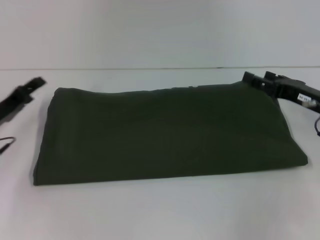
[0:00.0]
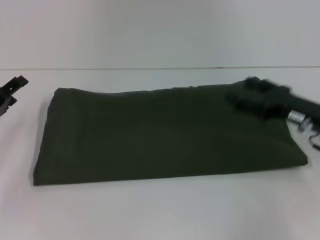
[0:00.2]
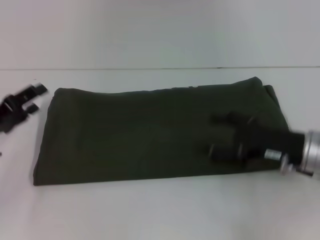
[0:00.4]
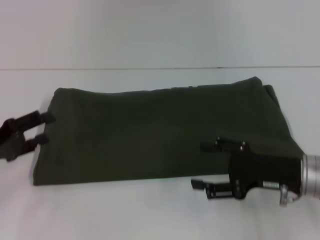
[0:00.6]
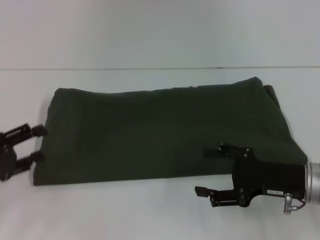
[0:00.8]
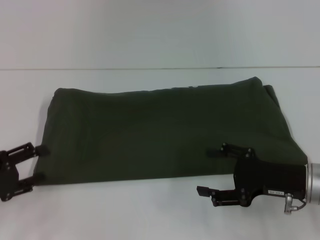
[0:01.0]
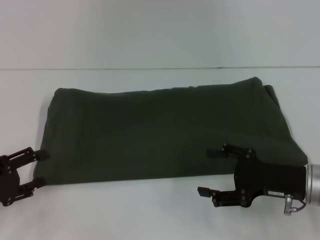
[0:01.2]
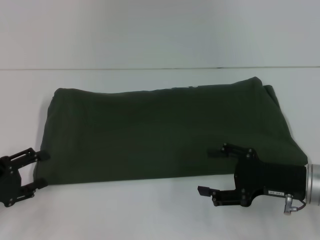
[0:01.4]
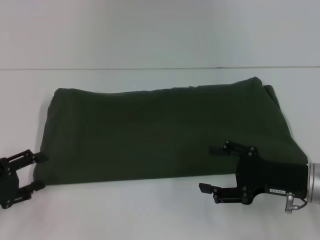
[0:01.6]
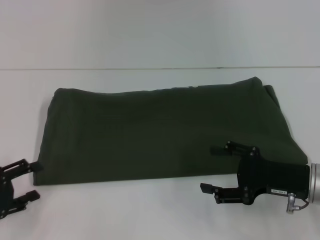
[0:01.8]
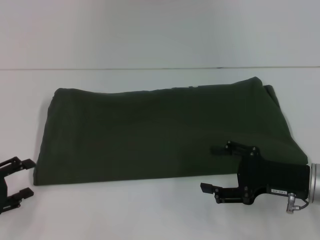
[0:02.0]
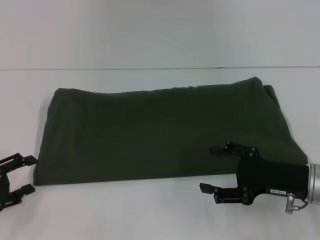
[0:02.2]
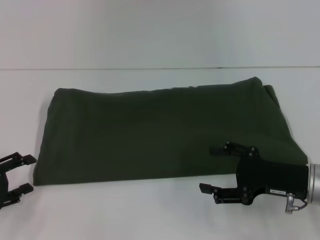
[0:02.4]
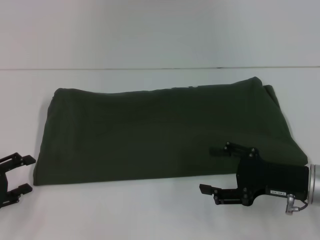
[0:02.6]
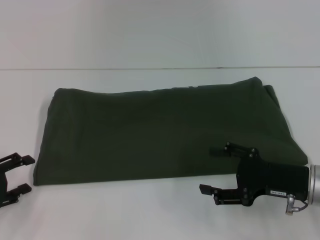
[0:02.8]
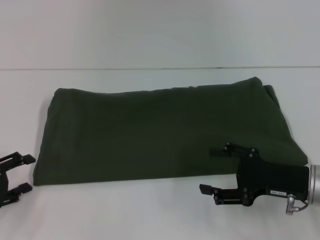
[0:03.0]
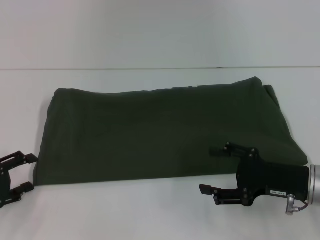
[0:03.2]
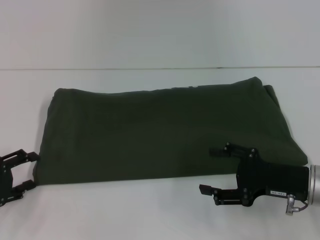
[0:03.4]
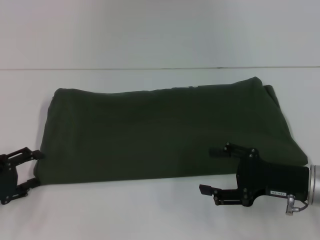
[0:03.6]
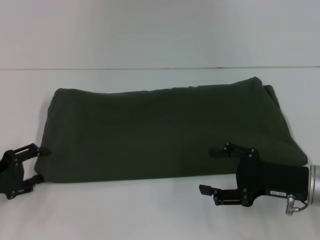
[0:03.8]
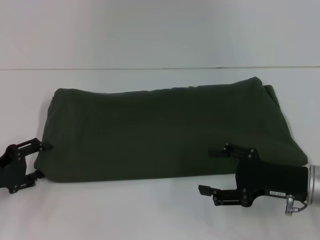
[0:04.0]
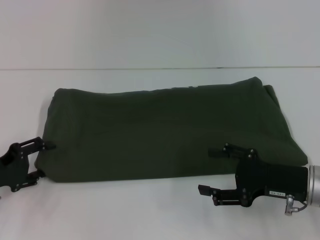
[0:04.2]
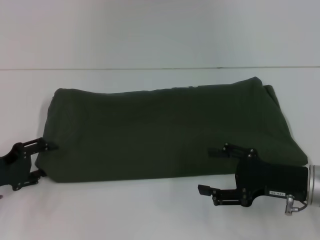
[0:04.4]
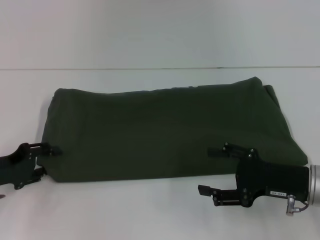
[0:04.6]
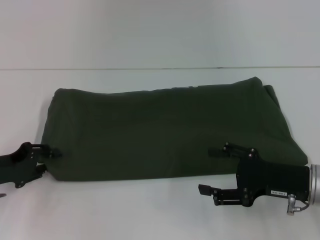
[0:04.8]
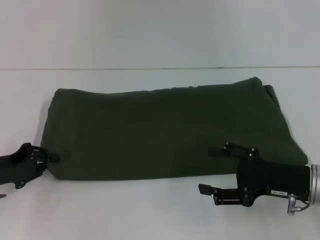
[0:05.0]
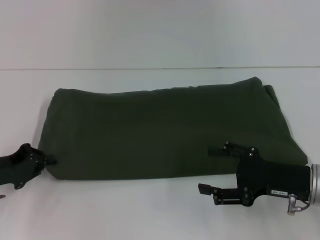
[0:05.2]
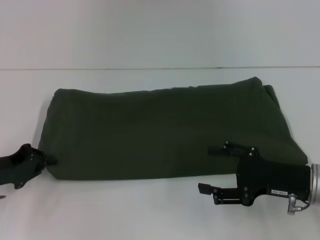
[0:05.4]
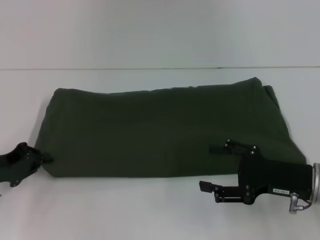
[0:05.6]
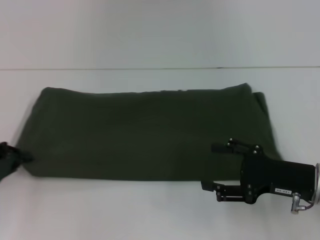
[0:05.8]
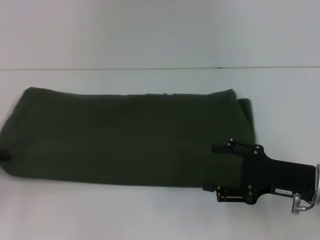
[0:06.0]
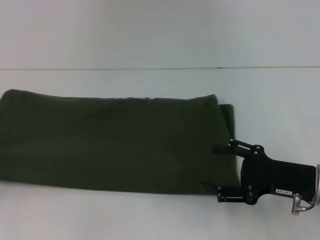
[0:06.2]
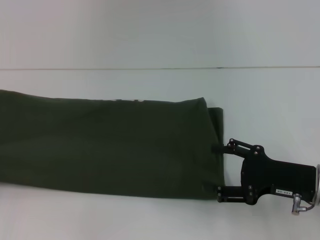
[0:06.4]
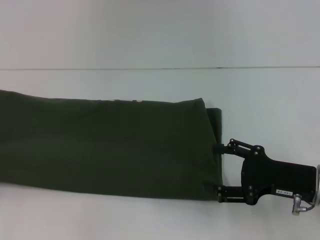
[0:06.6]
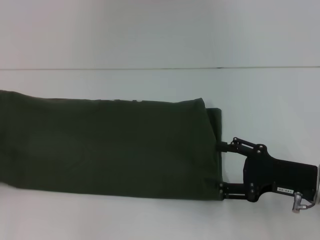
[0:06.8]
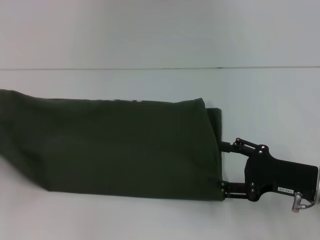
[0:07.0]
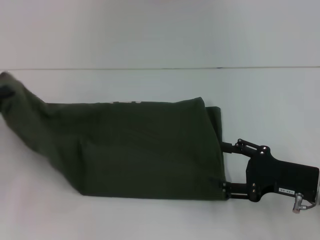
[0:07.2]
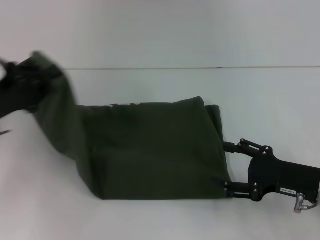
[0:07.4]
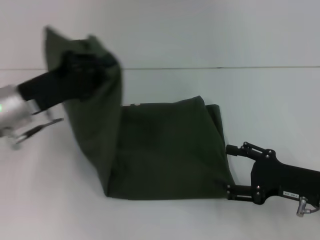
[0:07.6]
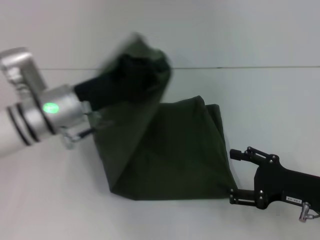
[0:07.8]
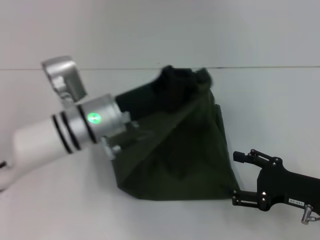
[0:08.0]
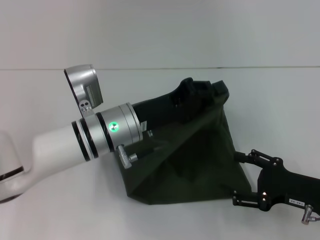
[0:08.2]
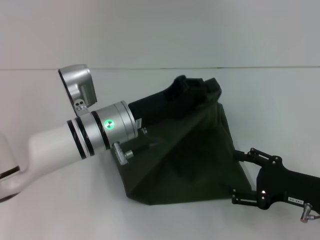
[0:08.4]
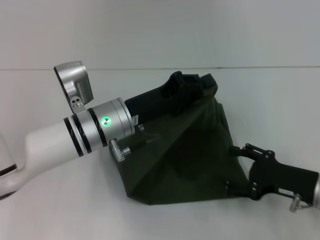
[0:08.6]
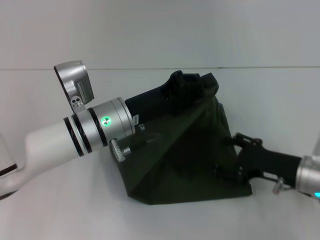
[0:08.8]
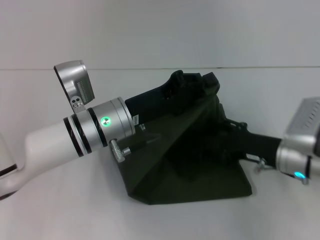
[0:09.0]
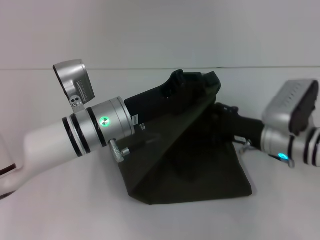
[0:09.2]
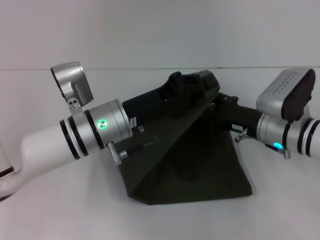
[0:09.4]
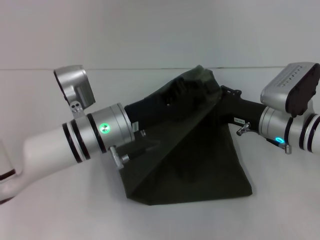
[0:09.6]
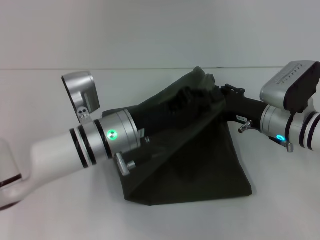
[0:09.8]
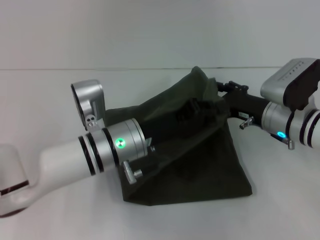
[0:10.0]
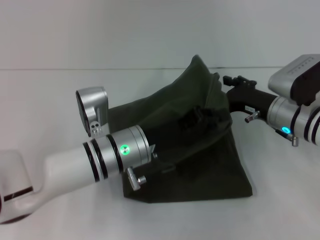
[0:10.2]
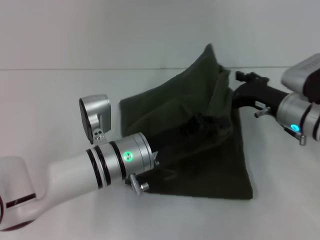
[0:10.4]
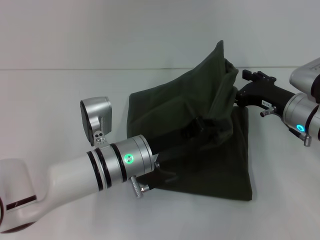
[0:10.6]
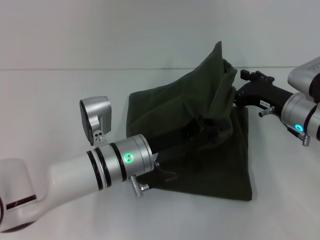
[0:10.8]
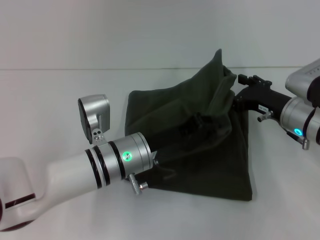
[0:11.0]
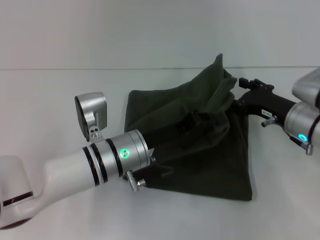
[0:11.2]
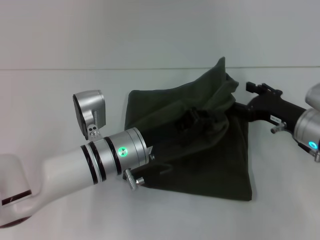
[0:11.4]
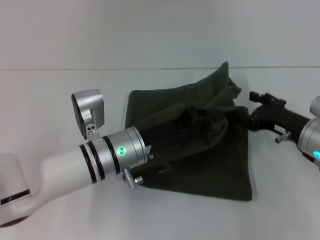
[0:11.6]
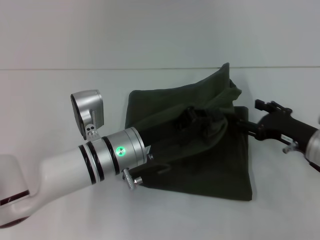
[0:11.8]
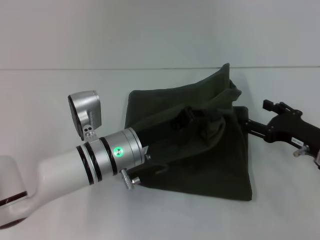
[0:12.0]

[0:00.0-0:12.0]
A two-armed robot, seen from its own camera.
0:00.0 to 0:01.6: Both grippers travel together backward, approximately 10 cm.
0:01.6 to 0:04.4: The grippers move only a little.
0:04.4 to 0:06.0: The left gripper heads to the left, covering some 5 cm, and closes up.
0:06.0 to 0:07.6: The left gripper heads to the right and forward, covering roughly 15 cm.
0:07.6 to 0:09.0: The right gripper shifts approximately 5 cm forward, while the left gripper shifts approximately 15 cm to the right.
0:09.0 to 0:10.4: The left gripper ends up roughly 5 cm from where it was. Meanwhile the right gripper is displaced forward by some 5 cm.
0:10.4 to 0:12.0: The right gripper travels backward and to the right by roughly 10 cm.

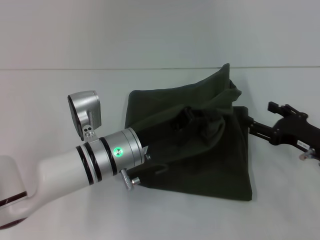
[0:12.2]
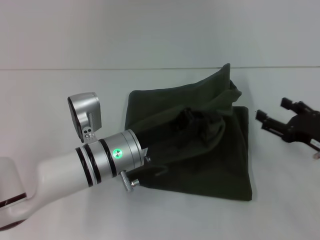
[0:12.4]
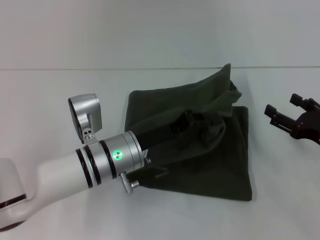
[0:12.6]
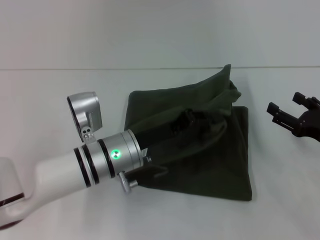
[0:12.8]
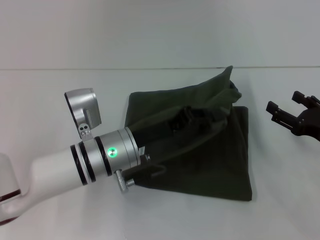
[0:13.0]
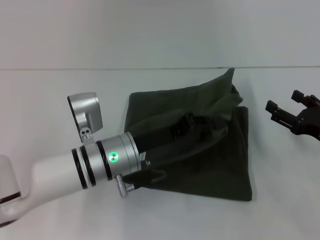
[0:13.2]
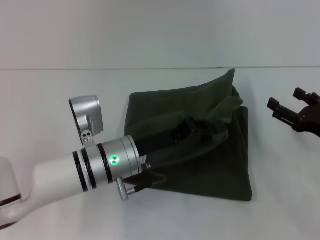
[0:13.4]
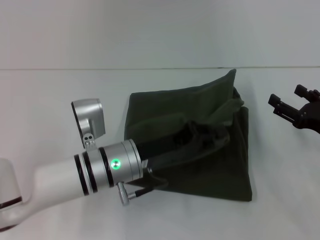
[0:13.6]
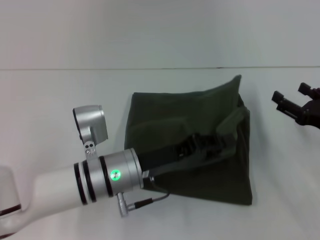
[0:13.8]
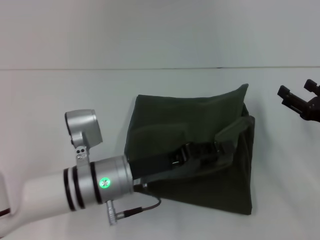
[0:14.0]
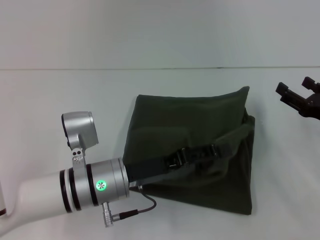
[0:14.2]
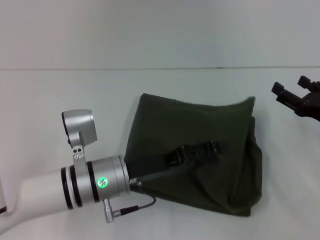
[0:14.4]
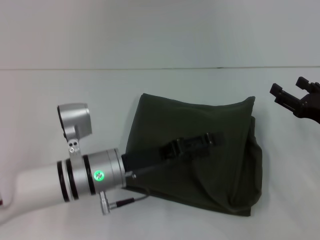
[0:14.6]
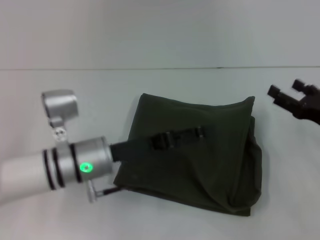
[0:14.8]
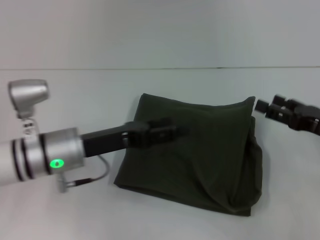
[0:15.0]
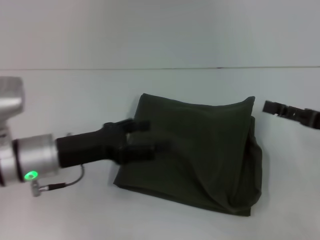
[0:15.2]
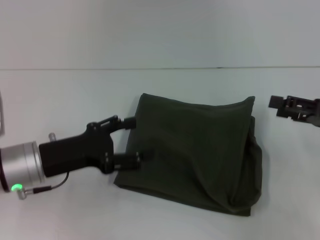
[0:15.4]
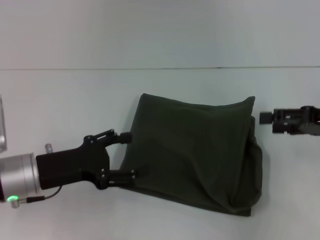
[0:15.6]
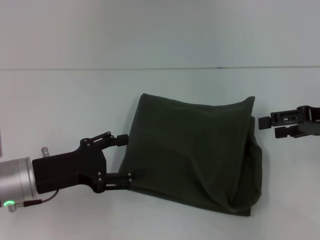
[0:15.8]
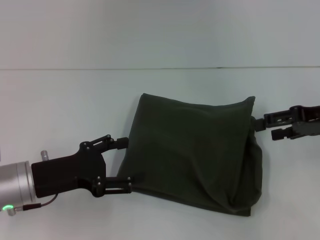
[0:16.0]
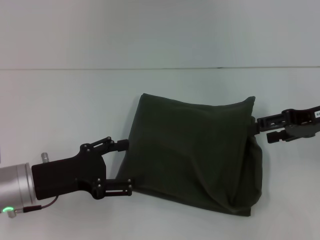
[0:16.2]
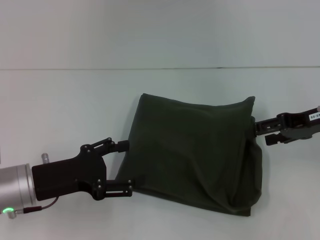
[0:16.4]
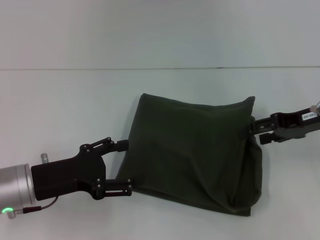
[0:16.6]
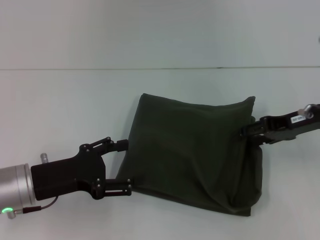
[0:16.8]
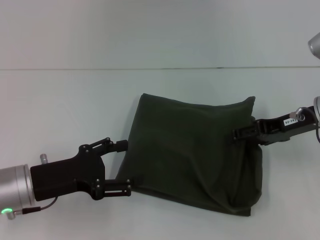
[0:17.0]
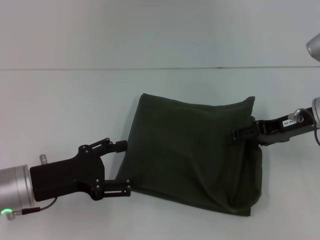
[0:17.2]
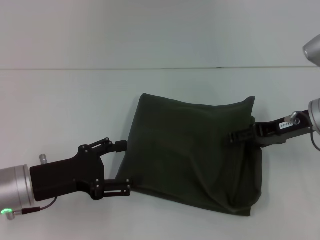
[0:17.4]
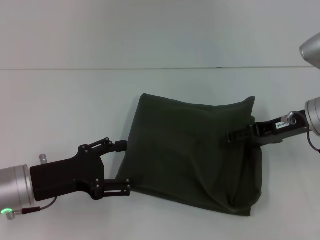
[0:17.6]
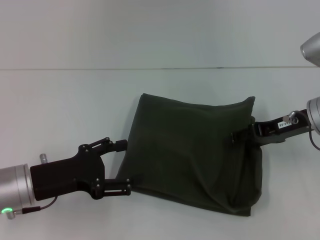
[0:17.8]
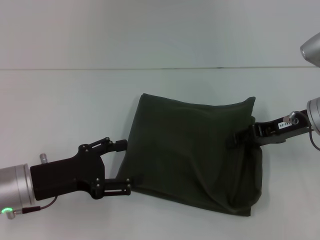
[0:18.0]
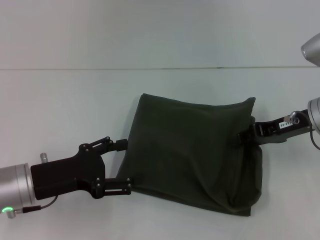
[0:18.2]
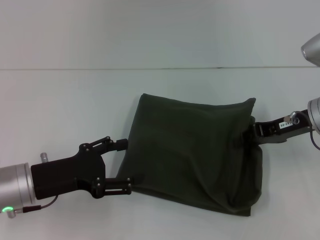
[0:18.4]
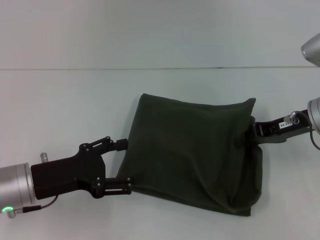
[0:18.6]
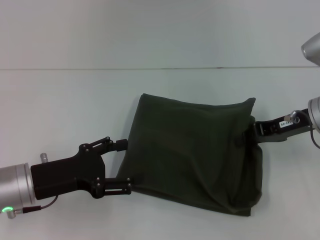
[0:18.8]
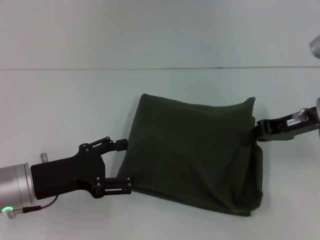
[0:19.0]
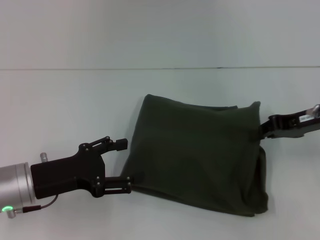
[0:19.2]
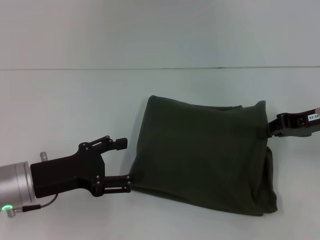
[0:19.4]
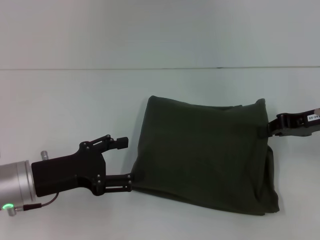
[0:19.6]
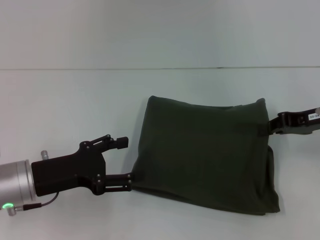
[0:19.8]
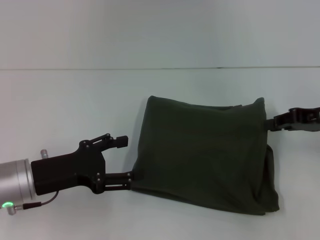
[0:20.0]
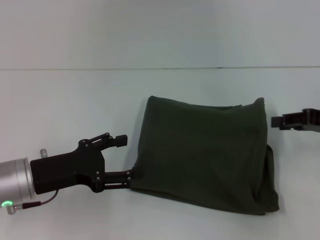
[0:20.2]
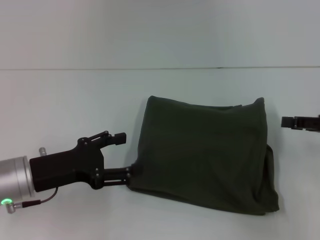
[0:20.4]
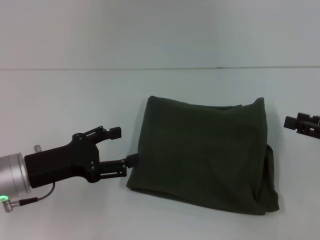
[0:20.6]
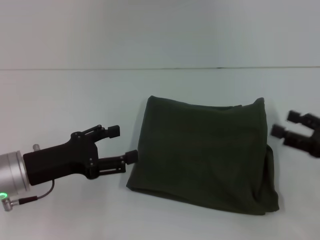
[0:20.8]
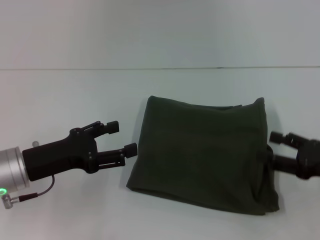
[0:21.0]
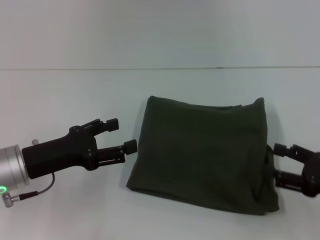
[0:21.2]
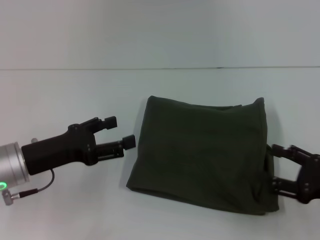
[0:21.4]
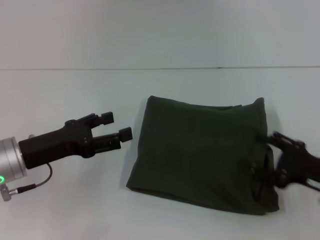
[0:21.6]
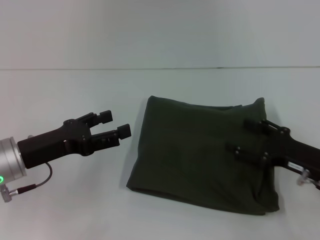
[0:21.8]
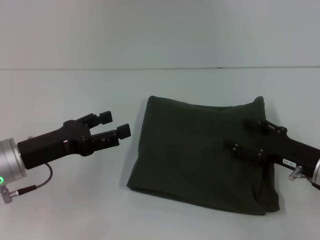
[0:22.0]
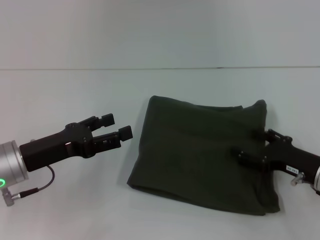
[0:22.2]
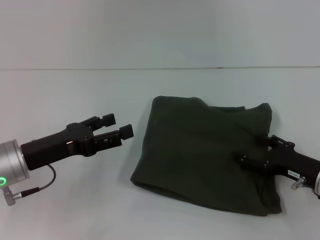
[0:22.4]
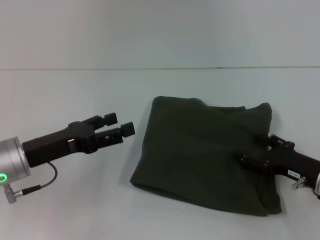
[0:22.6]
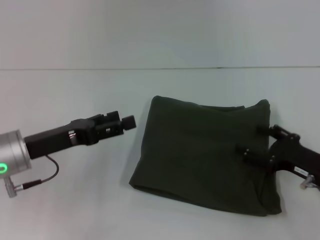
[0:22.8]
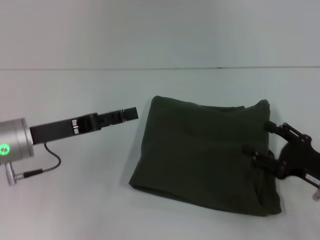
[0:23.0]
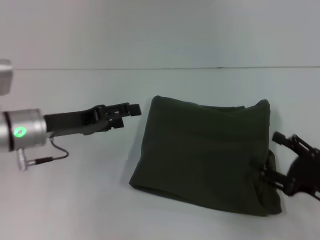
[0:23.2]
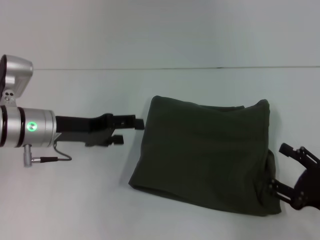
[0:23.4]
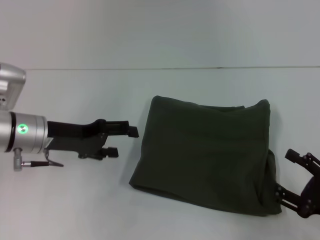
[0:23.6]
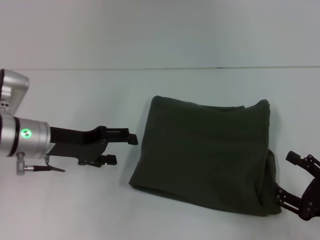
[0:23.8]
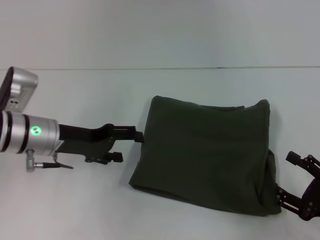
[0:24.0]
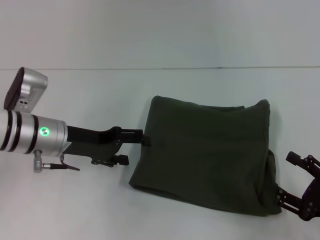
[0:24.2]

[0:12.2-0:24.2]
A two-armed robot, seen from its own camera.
Step, 0:12.2 to 0:14.4: Fold the clothes with your left hand.
0:12.2 to 0:13.8: The grippers move only a little.
0:13.8 to 0:15.2: The right gripper is displaced upward by roughly 5 cm. The left gripper shifts approximately 10 cm to the left, and opens up.
0:15.2 to 0:16.6: The right gripper is displaced forward by some 5 cm. The left gripper moves approximately 5 cm.
0:16.6 to 0:18.2: The right gripper closes its fingers.
0:18.2 to 0:19.8: The right gripper closes.
0:19.8 to 0:21.2: The right gripper shifts roughly 15 cm backward and downward, and opens up.
0:21.2 to 0:22.6: The right gripper travels downward by some 5 cm.
0:22.6 to 0:24.2: The left gripper moves forward, roughly 5 cm; the right gripper shifts some 10 cm backward.
